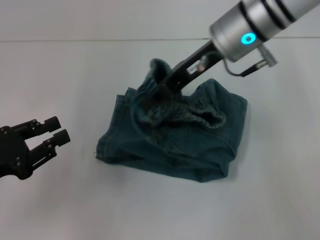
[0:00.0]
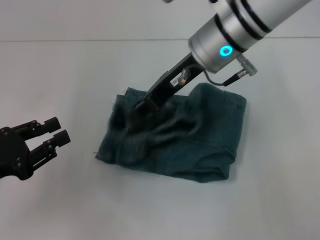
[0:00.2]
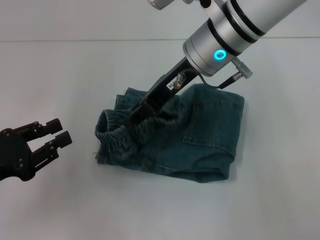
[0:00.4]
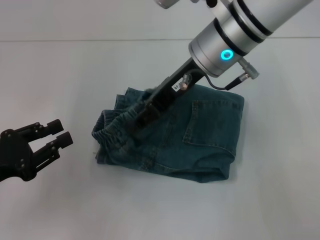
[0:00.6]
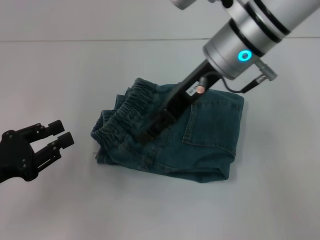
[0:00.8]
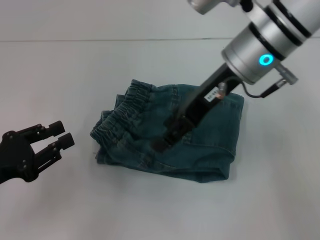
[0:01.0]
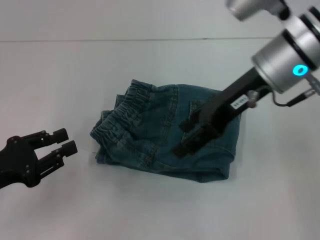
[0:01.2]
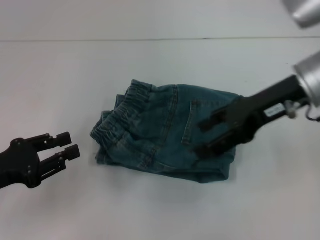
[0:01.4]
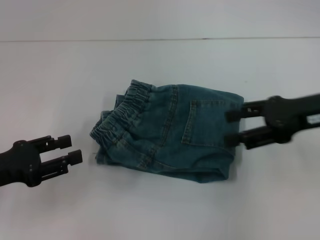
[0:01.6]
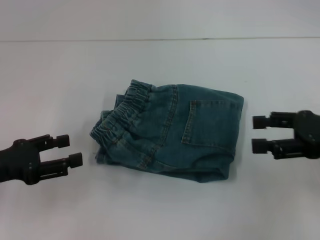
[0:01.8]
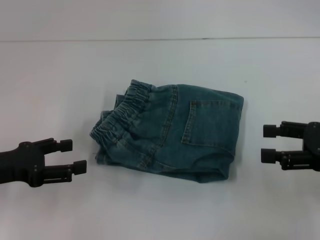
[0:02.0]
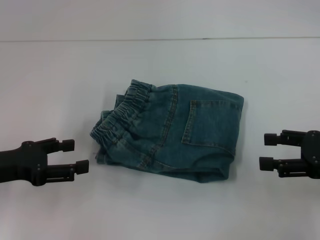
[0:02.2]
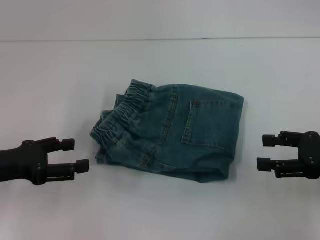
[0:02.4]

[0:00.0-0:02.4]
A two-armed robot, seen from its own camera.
Step, 0:00.0 to 0:01.6: Fold to the left with your right hand.
0:00.0 to 0:01.2: The right gripper changes place by roughly 5 cm, and opens its fingers.
0:01.2 to 0:02.4: The right gripper travels to the right, downward and backward by about 25 cm; the left gripper opens up.
